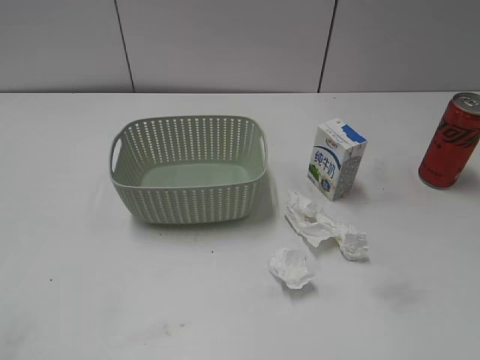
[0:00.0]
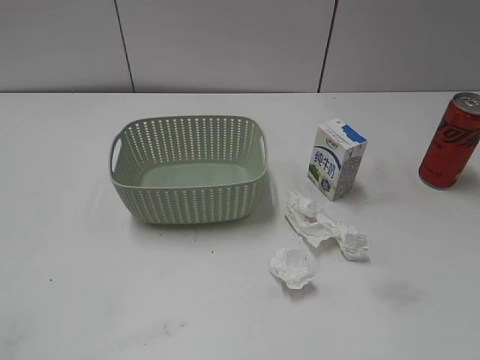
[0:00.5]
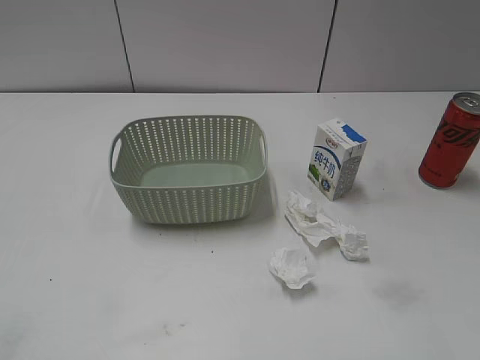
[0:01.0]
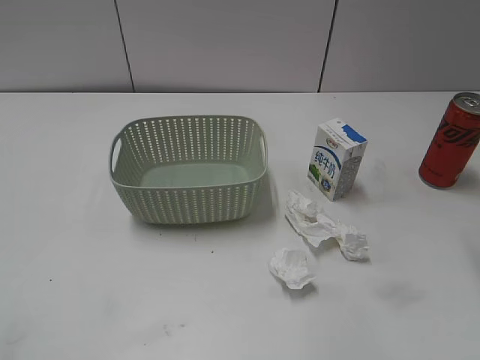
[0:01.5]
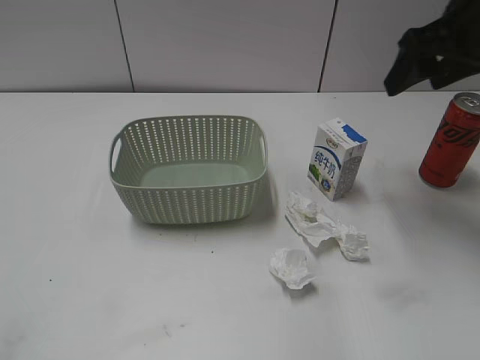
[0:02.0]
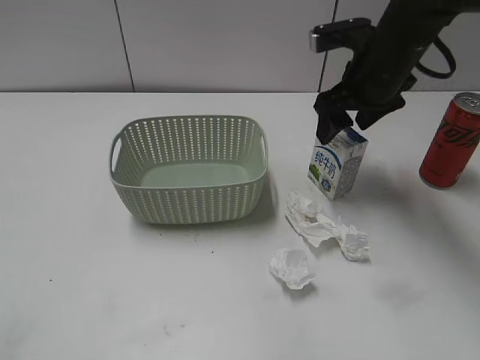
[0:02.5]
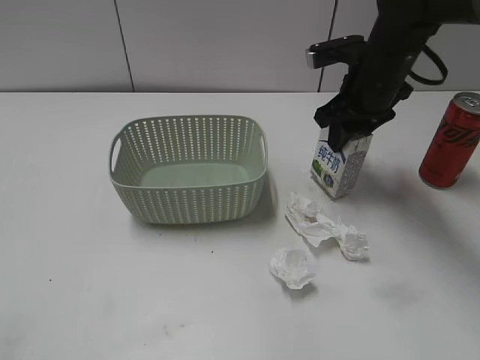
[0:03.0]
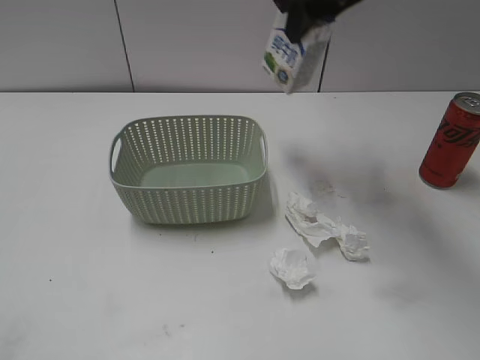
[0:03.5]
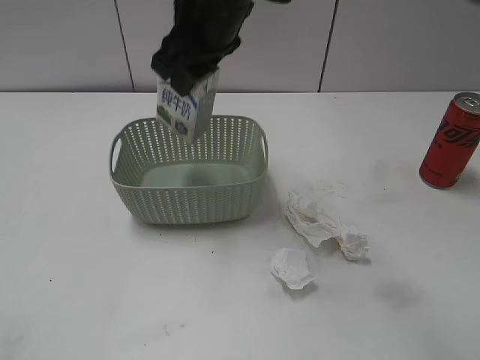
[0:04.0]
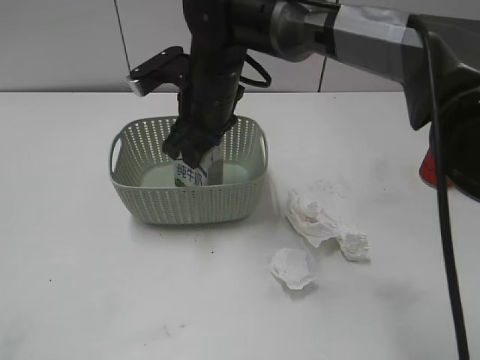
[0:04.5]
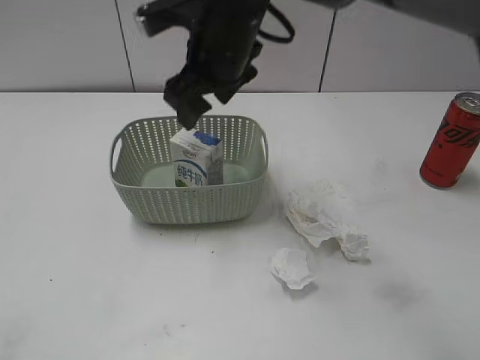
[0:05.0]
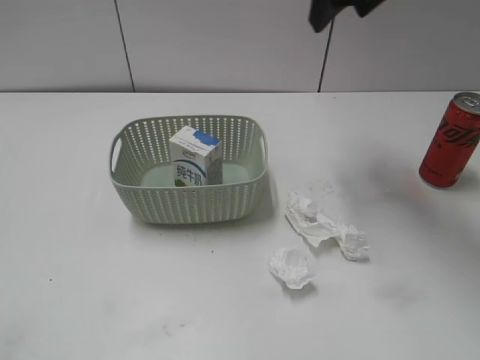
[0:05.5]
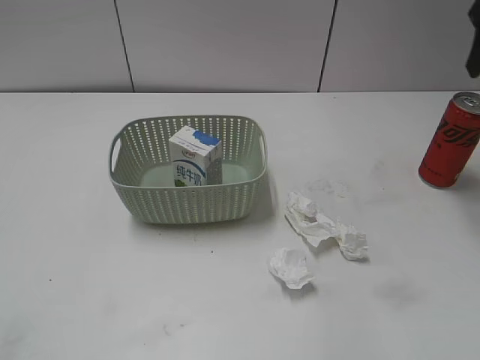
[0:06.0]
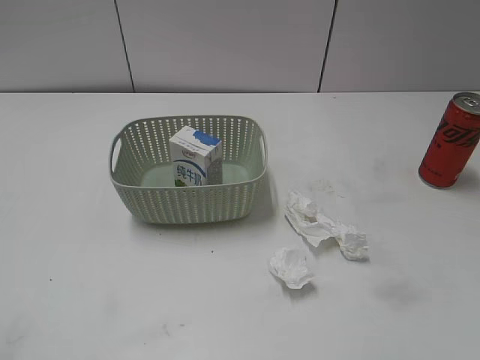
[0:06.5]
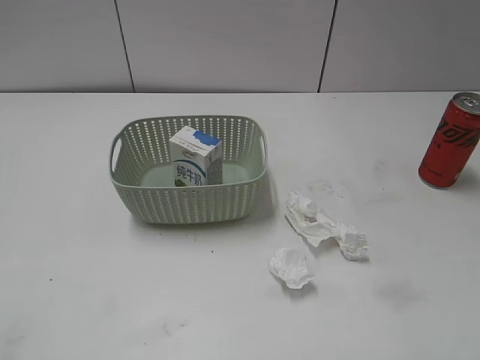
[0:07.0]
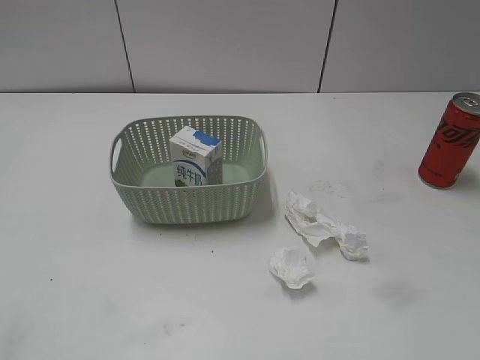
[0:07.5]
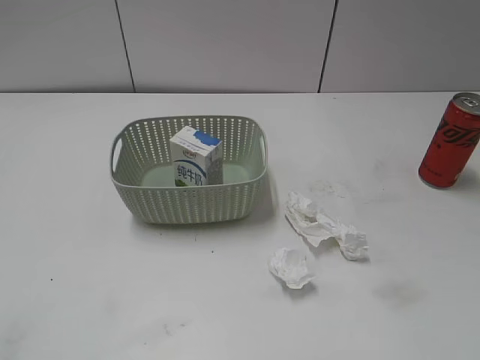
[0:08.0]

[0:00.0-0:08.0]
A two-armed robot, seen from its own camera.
Step, 0:02.0 to 0:02.5: Grasp the milk with right gripper.
Step, 0:03.0 to 0:05.0: Place the milk in the basket with right gripper.
0:02.0 to 0:04.0: The right gripper shifts approximately 25 cm to the left, and closes up.
0:04.0 to 0:06.0: The right gripper shifts some 30 cm to the right, and opens its fingers.
0:06.0 to 0:08.0: The right gripper is displaced backward by some 40 cm.
